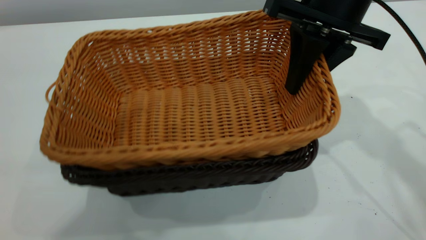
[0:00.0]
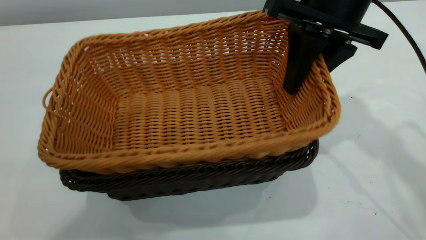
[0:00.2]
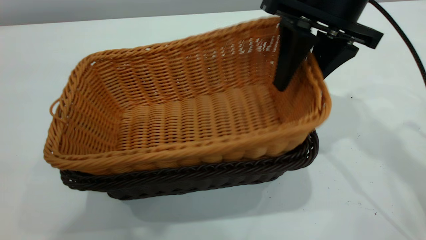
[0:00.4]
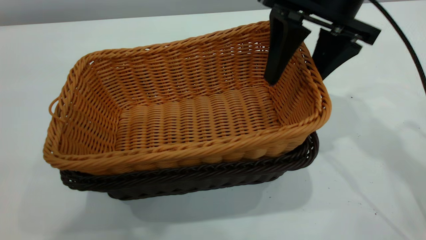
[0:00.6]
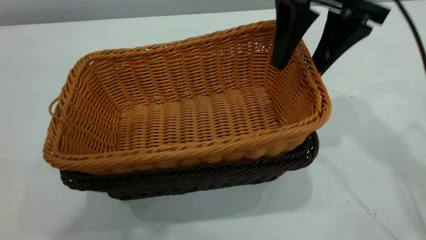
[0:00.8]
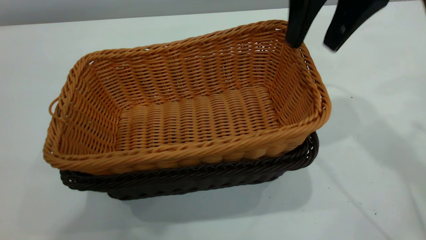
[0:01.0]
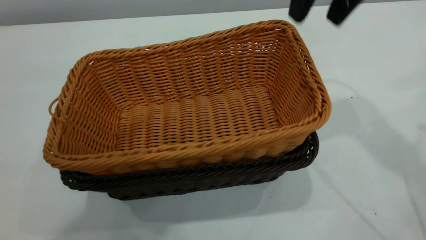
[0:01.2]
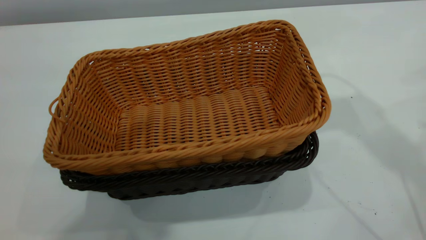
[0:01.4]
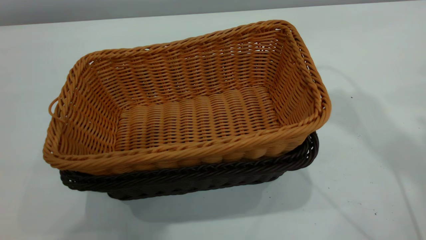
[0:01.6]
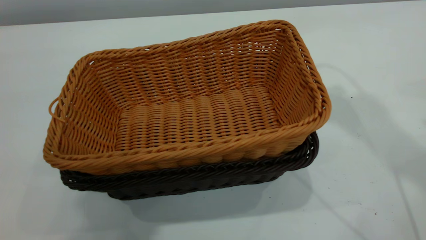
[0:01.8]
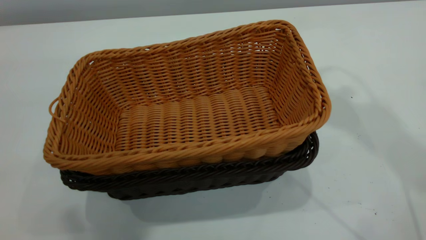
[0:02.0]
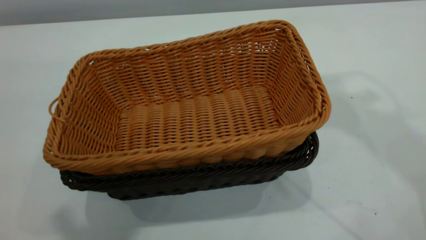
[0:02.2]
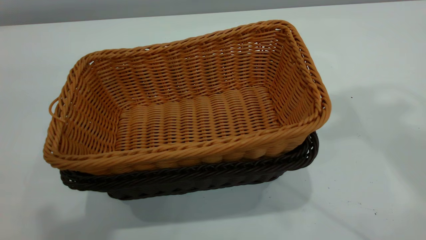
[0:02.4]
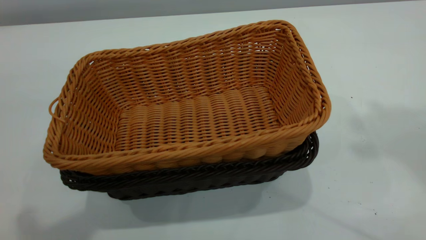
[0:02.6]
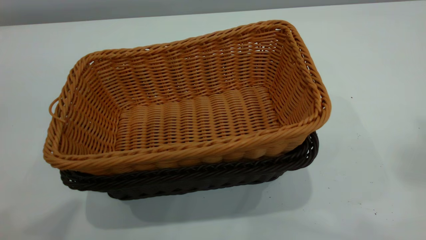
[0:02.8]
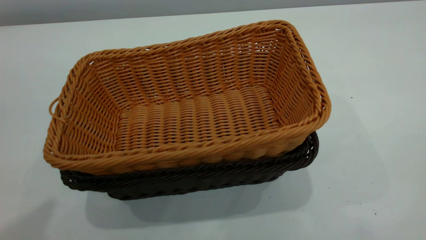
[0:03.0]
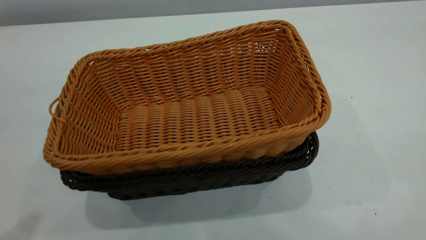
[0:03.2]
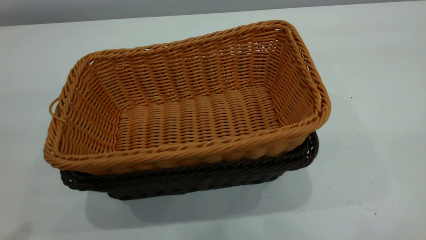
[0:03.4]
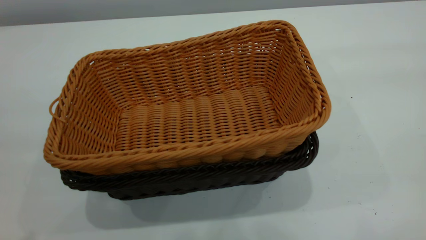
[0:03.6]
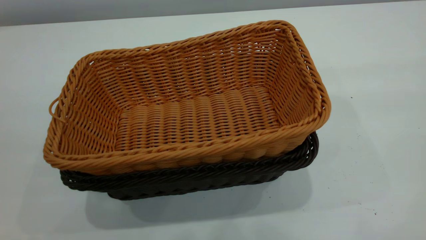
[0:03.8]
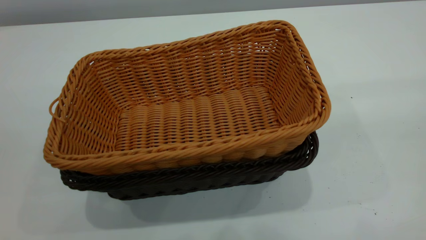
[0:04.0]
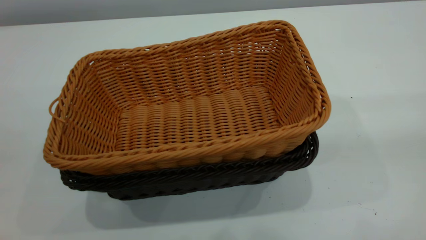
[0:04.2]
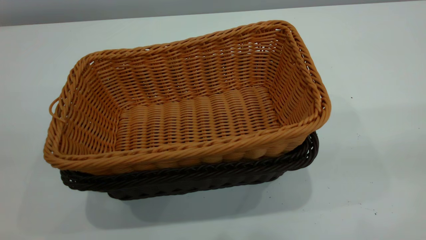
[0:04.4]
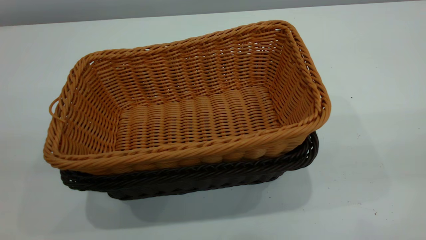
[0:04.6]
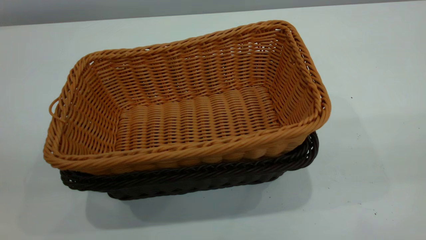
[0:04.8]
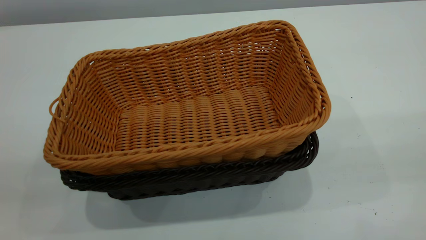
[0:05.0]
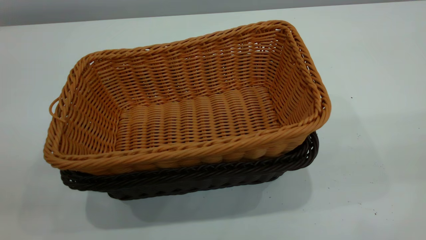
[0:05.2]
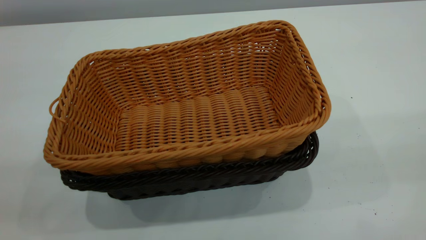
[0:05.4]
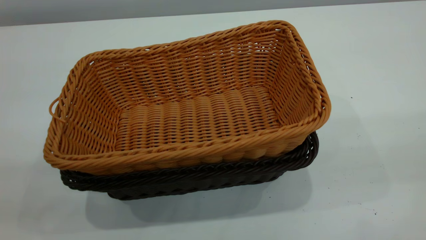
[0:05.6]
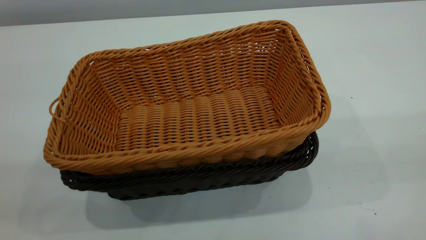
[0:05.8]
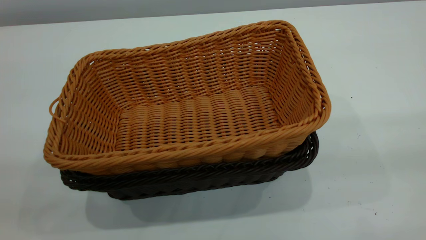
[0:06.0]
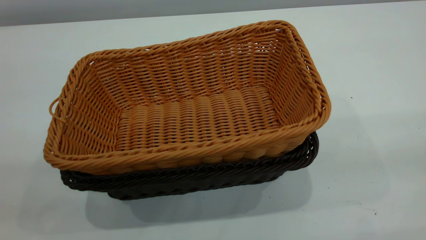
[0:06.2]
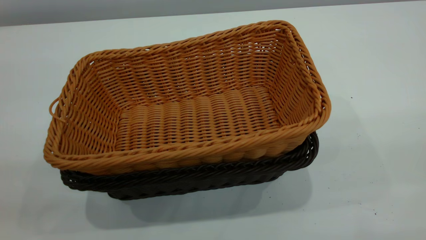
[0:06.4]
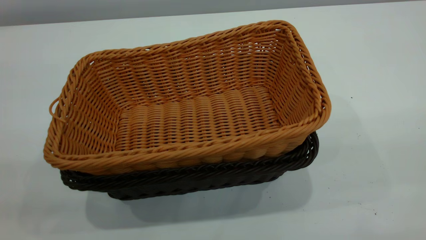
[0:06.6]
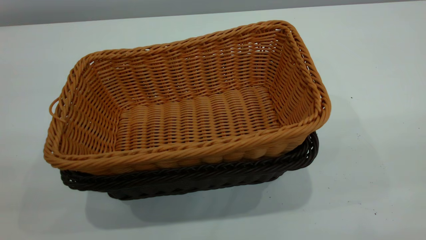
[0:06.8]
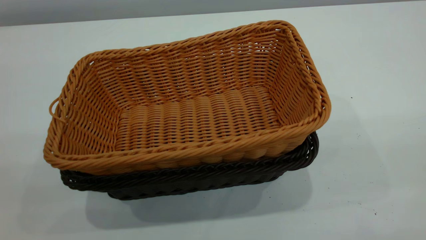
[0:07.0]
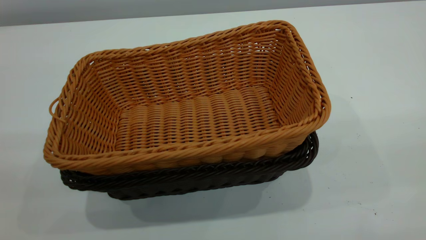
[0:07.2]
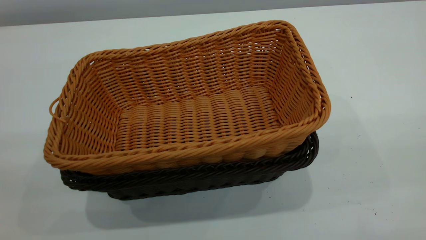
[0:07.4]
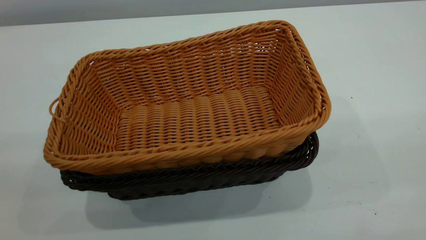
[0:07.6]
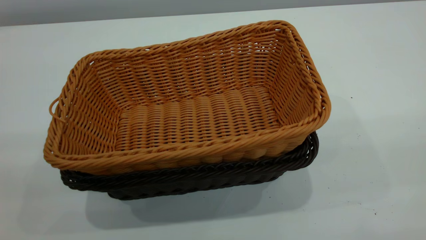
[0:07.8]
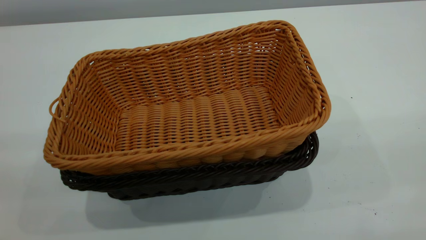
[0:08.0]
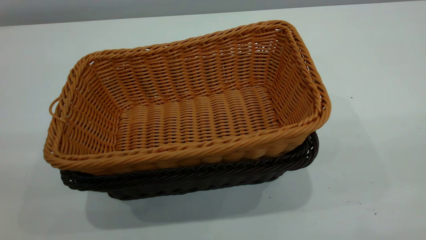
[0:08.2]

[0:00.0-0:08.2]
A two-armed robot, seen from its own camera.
Task of the whole recording: the left gripper grasp the black basket and place it in the center of the table, the right gripper grasp the brown basket and place it inside the black one.
0:00.0 to 0:01.6: The left gripper closes up; the right gripper shifts approximately 15 cm upward, and opens up.

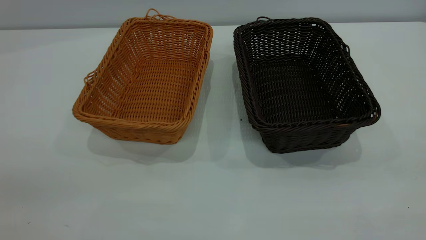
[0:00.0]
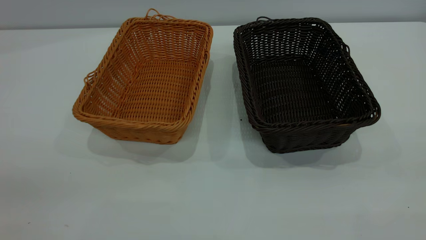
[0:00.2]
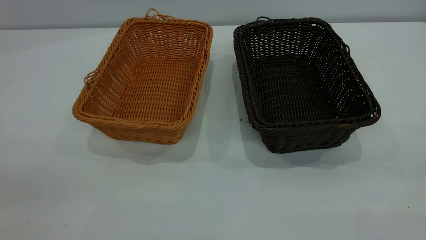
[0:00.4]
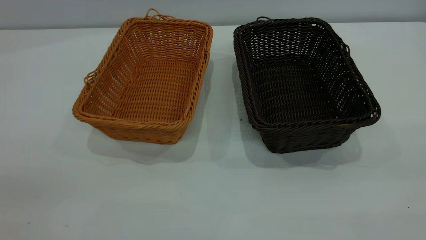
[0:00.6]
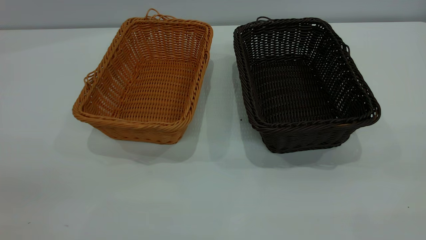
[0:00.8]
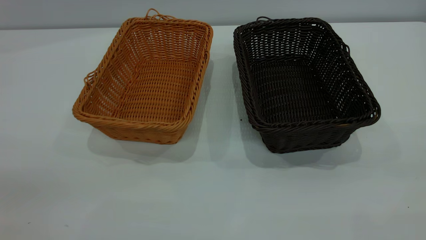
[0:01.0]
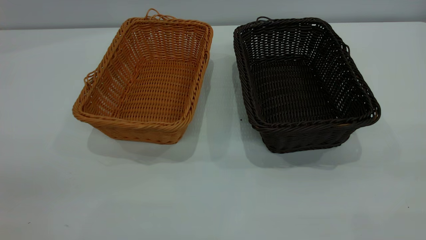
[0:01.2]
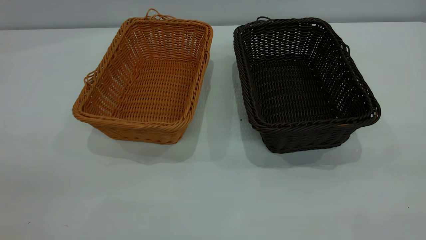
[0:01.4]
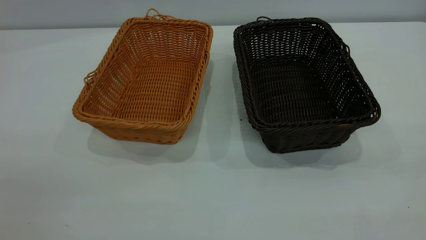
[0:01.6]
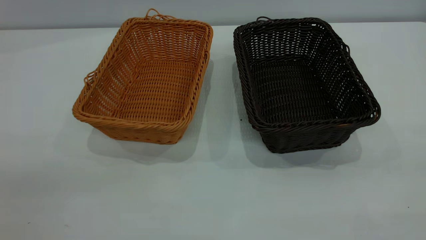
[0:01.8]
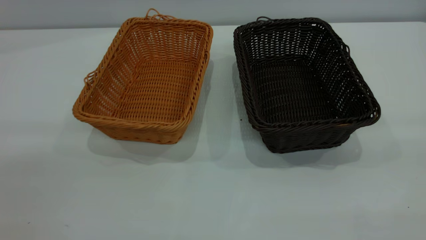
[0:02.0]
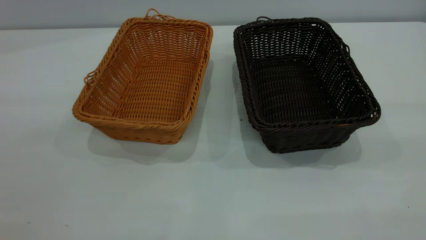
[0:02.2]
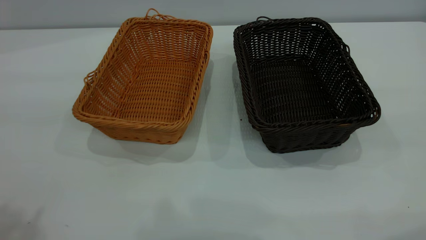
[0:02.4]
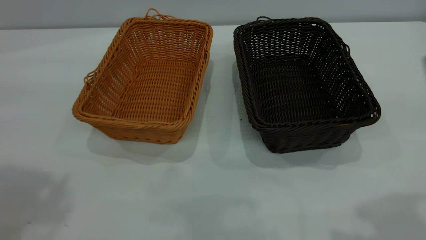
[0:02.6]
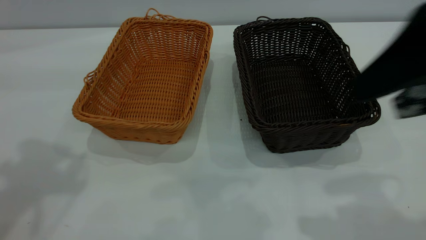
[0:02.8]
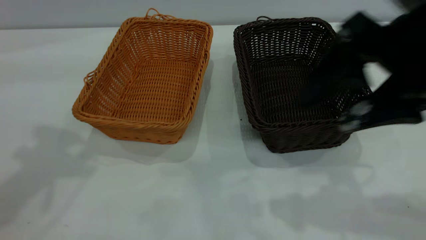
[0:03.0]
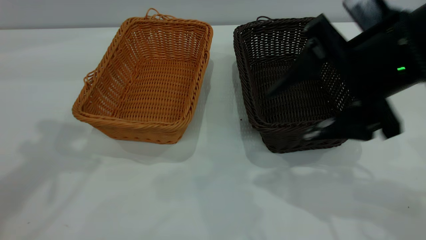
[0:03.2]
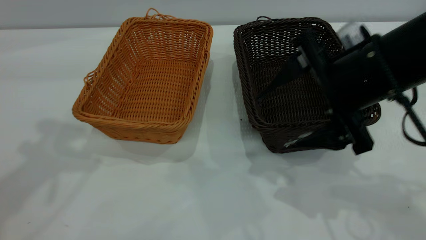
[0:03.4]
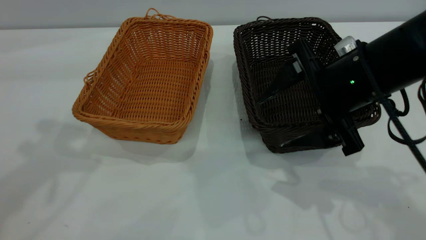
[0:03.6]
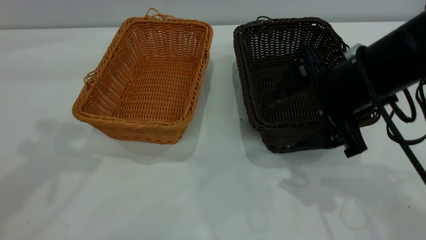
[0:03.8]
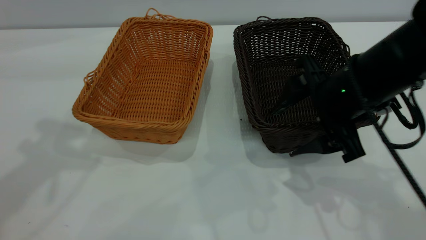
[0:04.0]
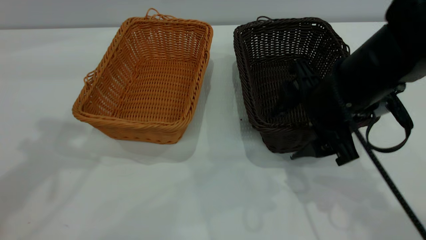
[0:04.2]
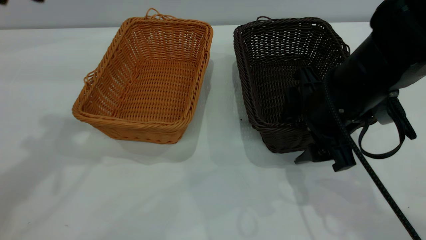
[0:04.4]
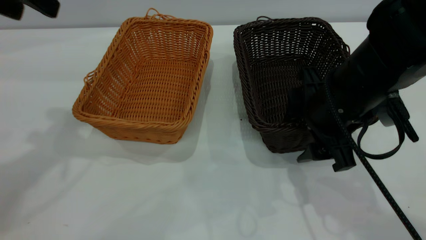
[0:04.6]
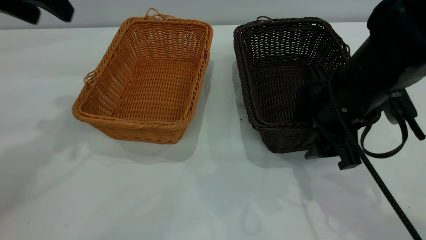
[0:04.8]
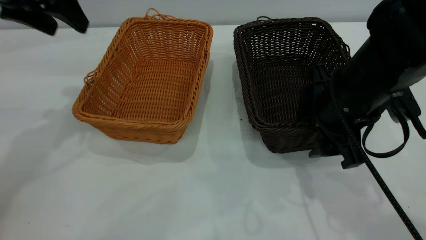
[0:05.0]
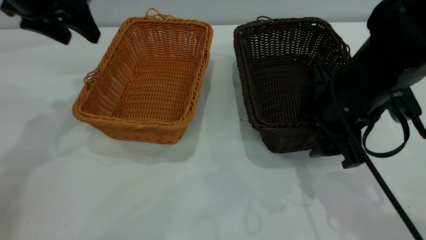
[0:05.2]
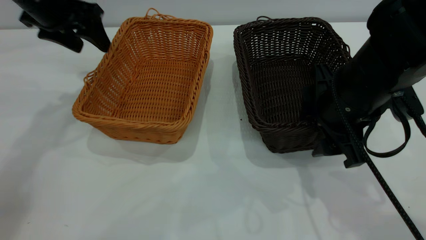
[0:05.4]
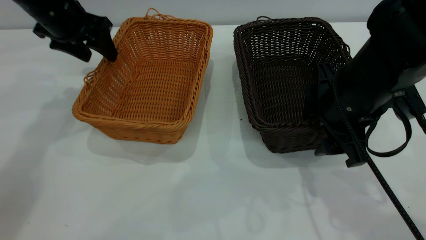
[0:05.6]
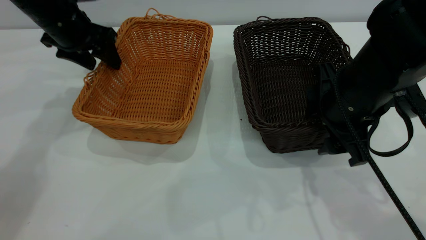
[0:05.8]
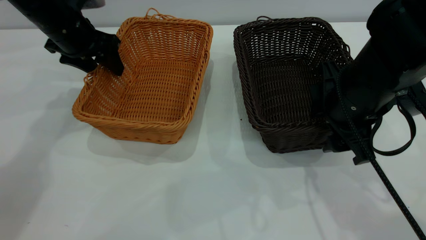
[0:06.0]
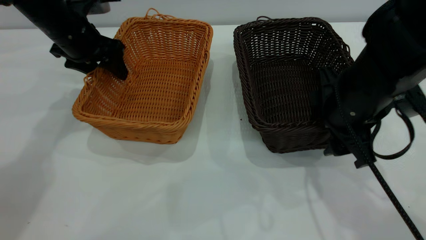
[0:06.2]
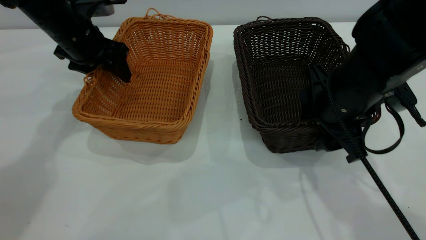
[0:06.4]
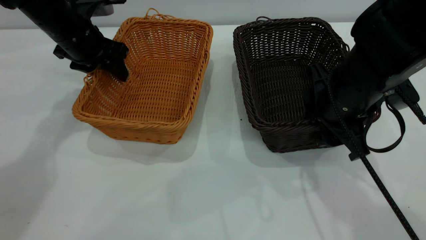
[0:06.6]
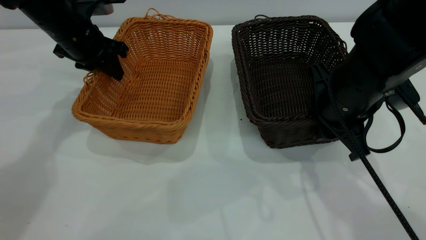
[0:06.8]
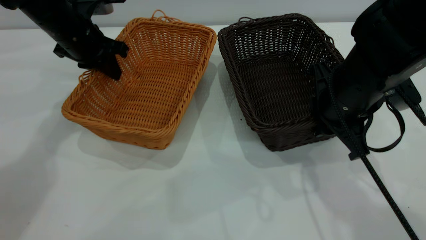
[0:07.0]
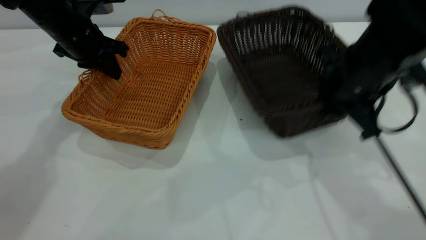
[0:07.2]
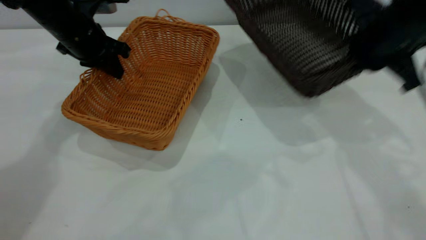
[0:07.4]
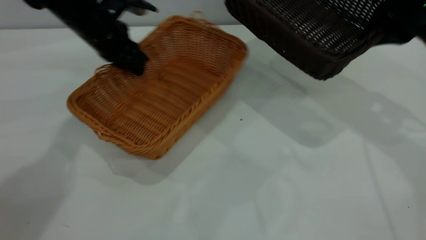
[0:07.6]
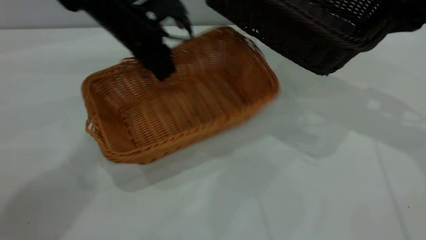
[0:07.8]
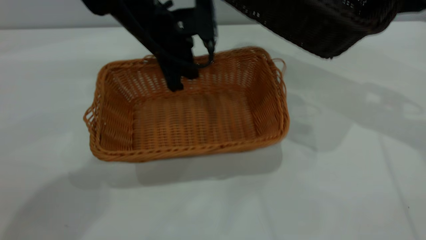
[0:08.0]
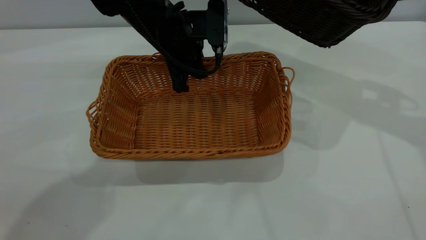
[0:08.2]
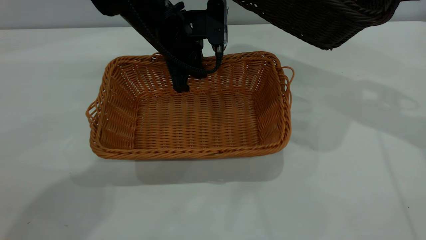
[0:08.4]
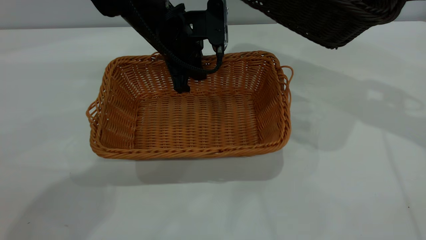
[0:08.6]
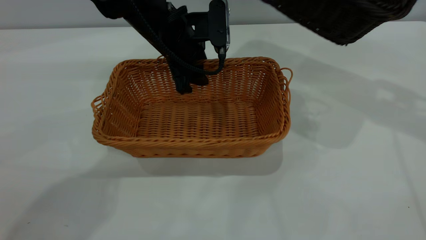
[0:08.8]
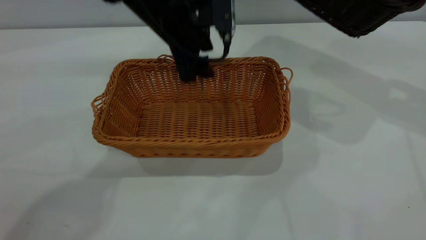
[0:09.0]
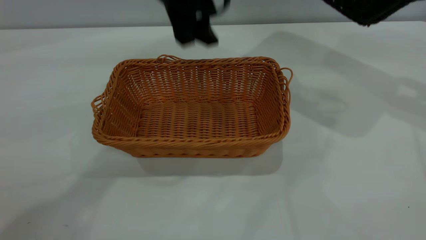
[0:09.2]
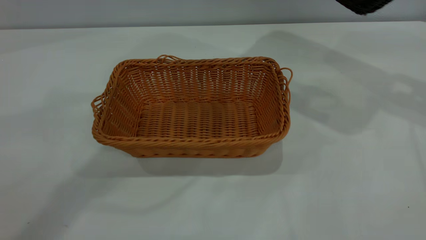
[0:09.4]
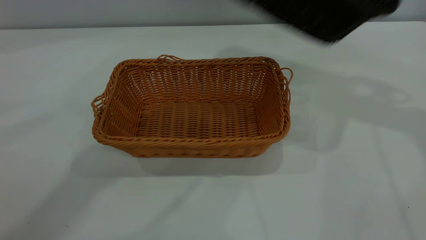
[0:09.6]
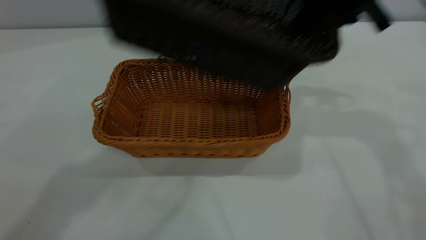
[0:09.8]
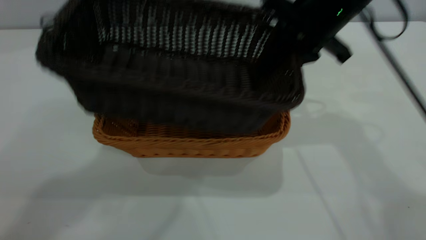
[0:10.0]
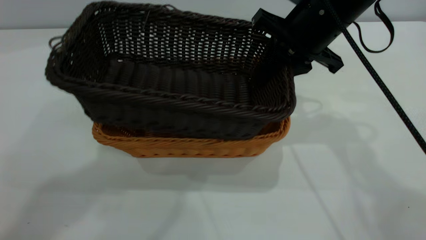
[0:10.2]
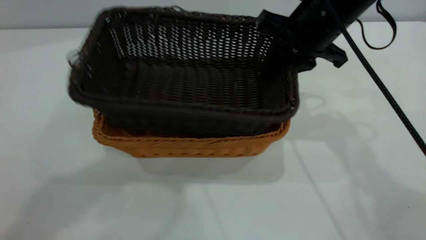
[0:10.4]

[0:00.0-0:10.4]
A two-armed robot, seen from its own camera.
Task of the whole recording: the left gripper grasp the brown basket and place it in the center of the table, the right gripper grasp the black basket and place it inside the brown one.
Step, 0:00.0 to 0:07.4: Pick up the light basket with the right gripper.
Step, 0:07.8 to 0:09.0: Place the light-colored basket in the center.
0:00.0 to 0:01.4: Both grippers stay put.
0:01.4 to 0:03.0: The right gripper moves forward, to the left and downward, some 25 cm, and opens its fingers.
0:03.0 to 0:04.4: The right gripper heads downward and forward, covering some 10 cm.
0:04.4 to 0:06.0: The left gripper goes about 25 cm downward and forward.
0:06.0 to 0:07.4: The right gripper travels upward, to the right and forward by approximately 10 cm, and closes. Meanwhile the left gripper closes.
0:07.4 to 0:09.0: The left gripper heads to the right, covering some 15 cm, and opens, while the right gripper shifts approximately 15 cm to the right and upward.
0:09.0 to 0:10.4: The left gripper is displaced upward and backward by approximately 35 cm; the right gripper is displaced to the left and downward by roughly 20 cm.
